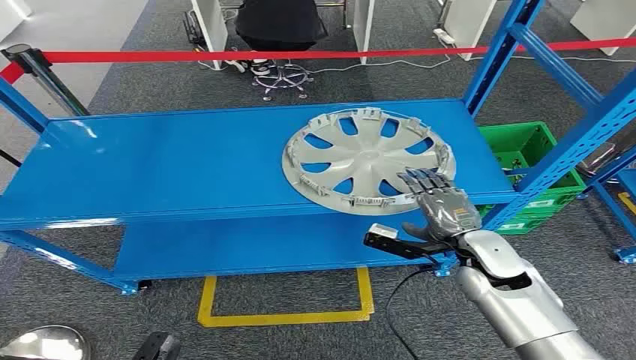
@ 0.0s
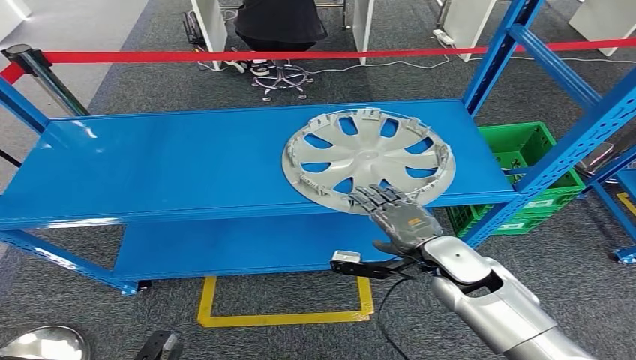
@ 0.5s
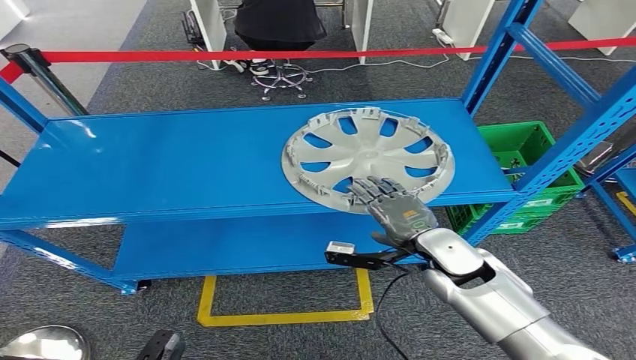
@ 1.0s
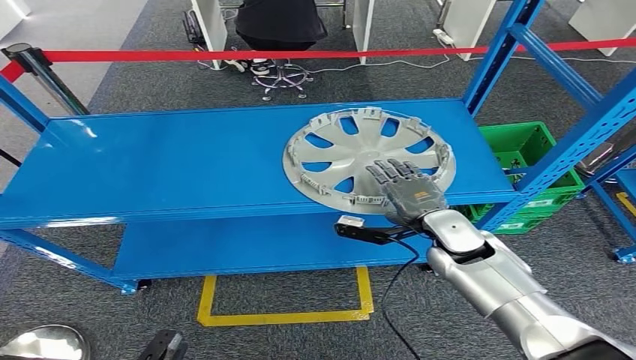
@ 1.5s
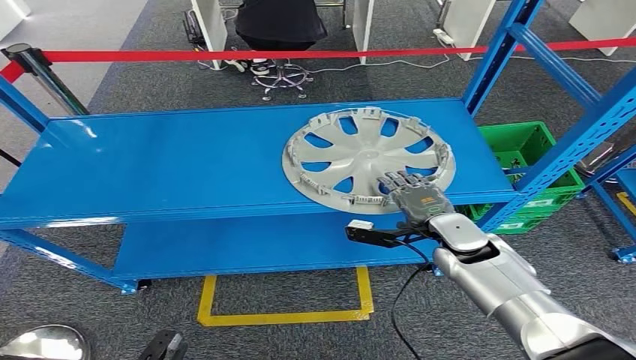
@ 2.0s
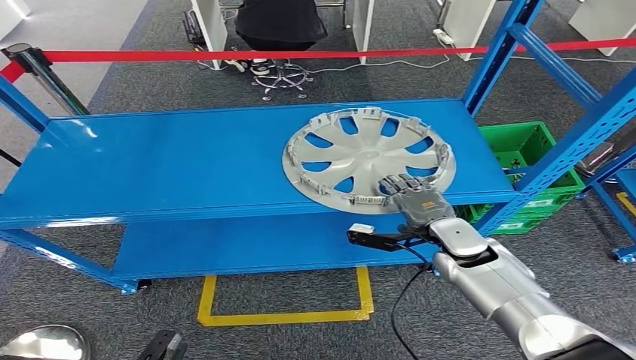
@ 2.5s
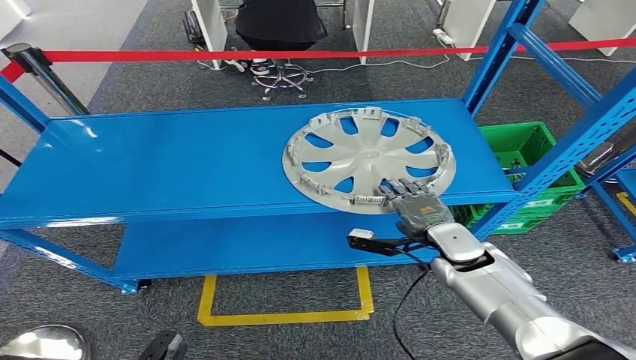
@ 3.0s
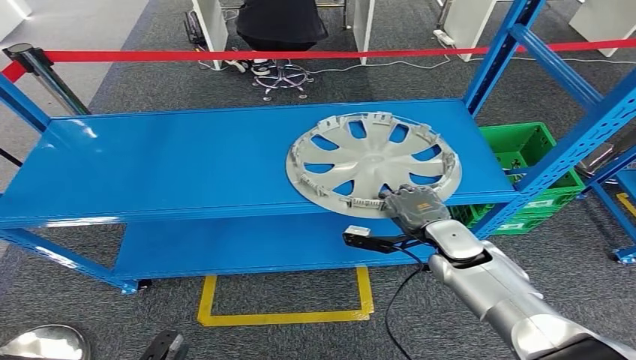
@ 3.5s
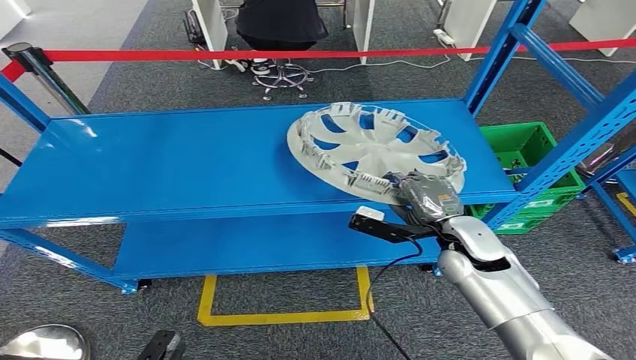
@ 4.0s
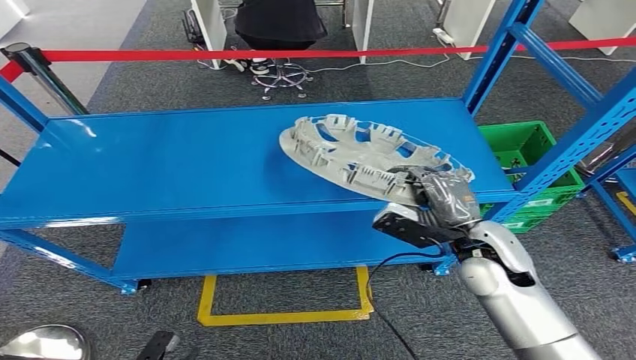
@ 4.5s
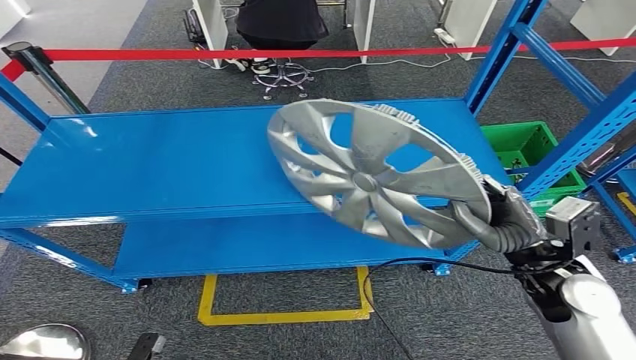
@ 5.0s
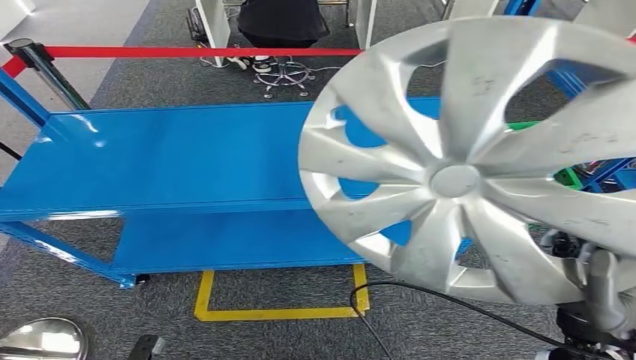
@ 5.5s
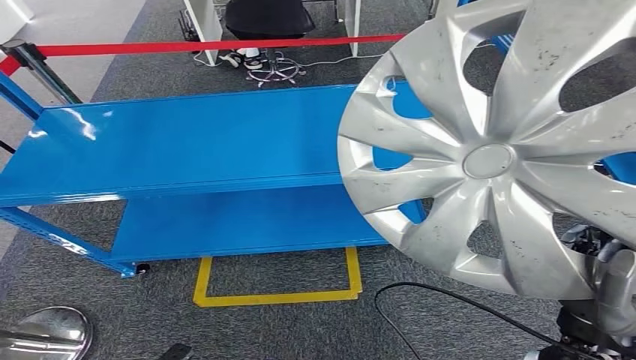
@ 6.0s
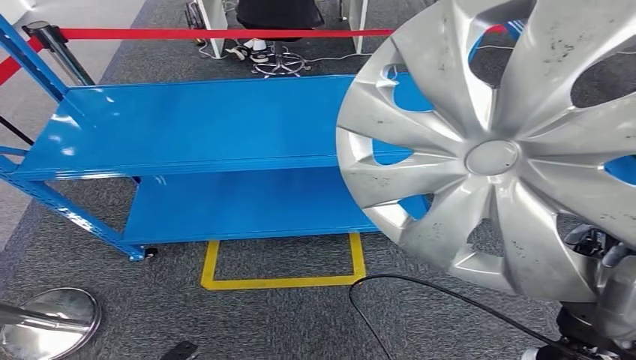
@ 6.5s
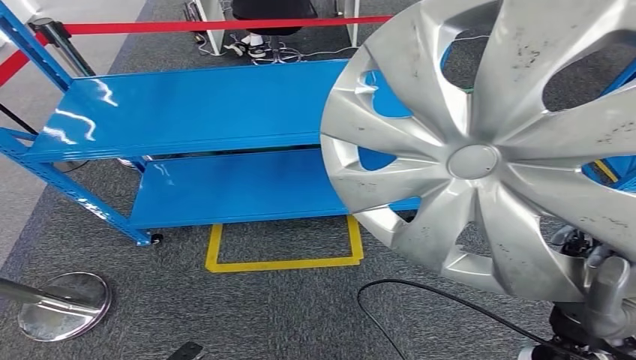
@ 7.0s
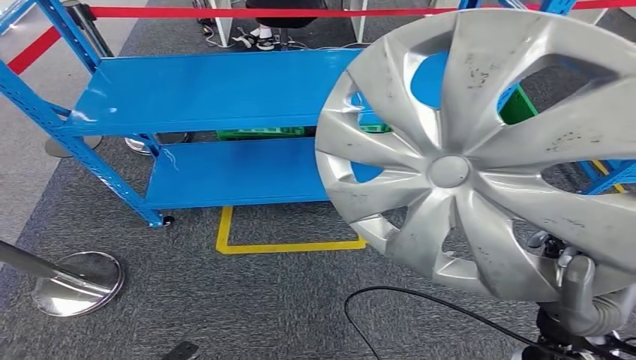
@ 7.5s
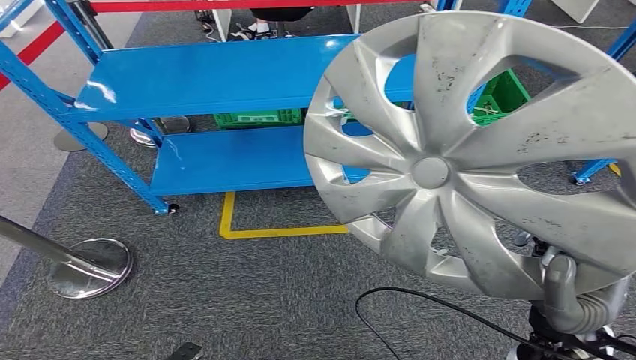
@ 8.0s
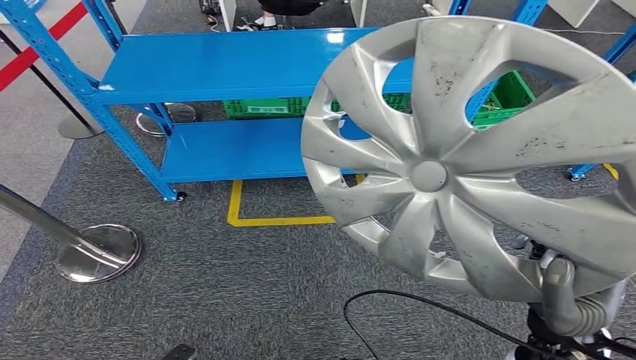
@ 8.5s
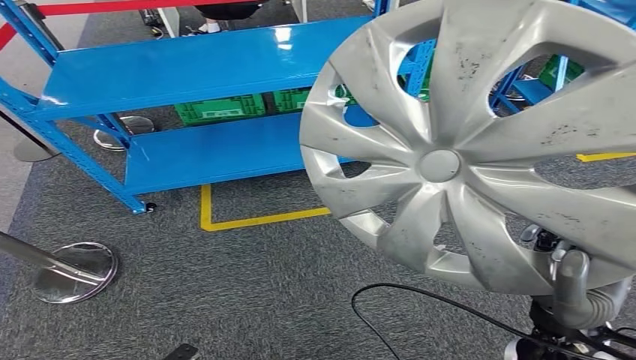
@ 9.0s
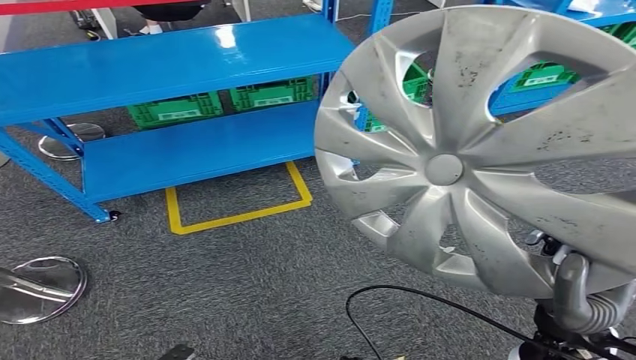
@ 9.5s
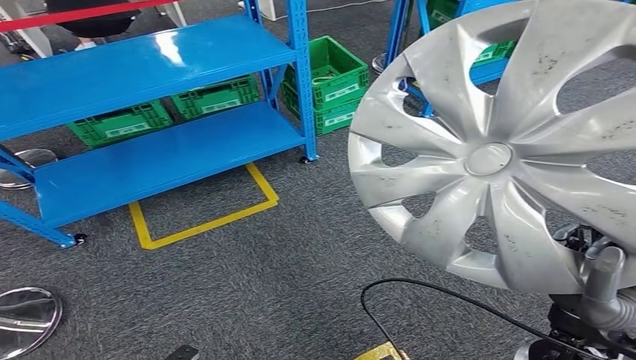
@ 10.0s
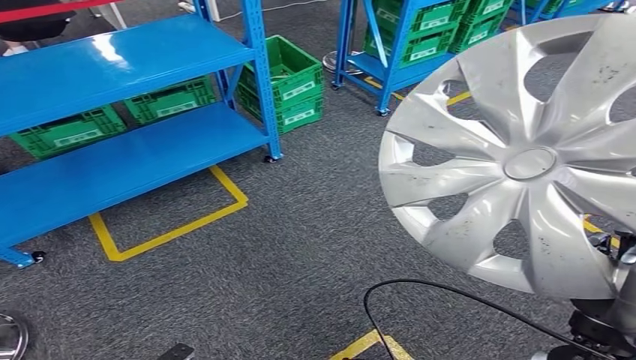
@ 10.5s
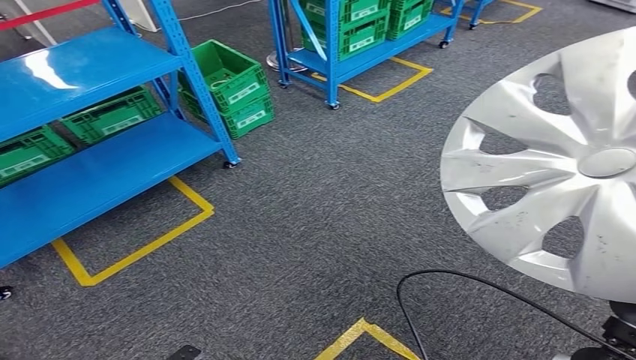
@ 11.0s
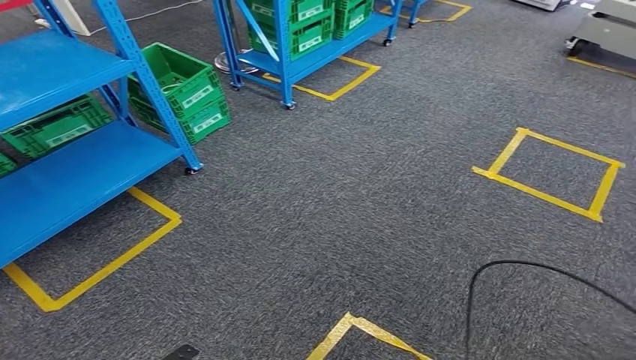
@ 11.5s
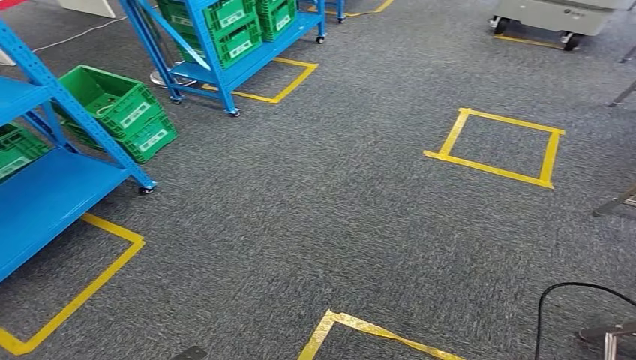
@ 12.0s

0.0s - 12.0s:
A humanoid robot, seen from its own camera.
Step, 0.0s - 6.0s: Pick up the small component from the shelf.

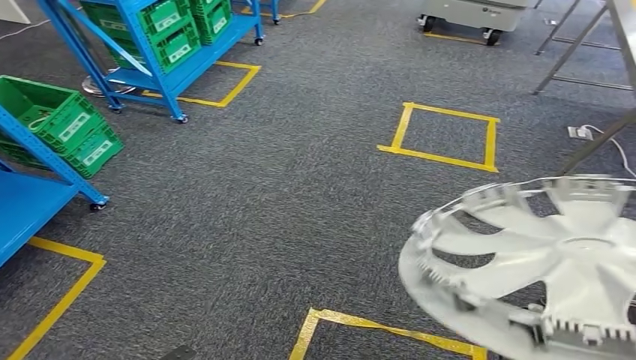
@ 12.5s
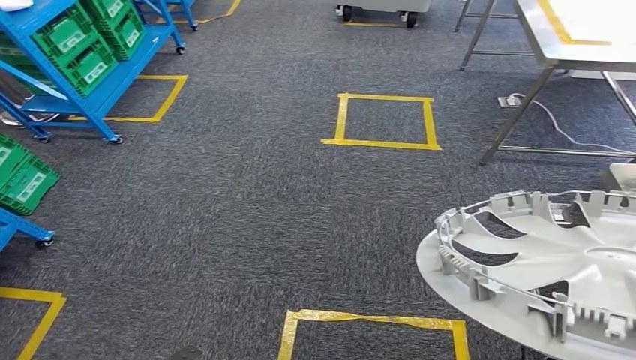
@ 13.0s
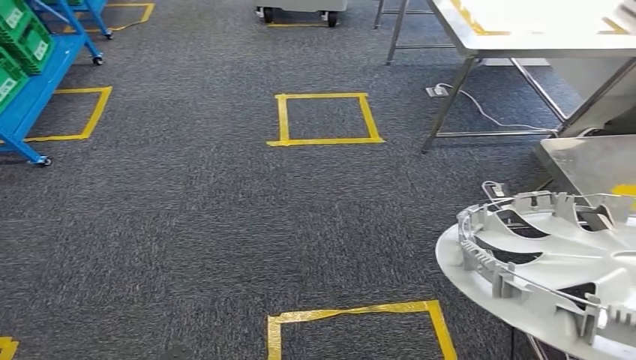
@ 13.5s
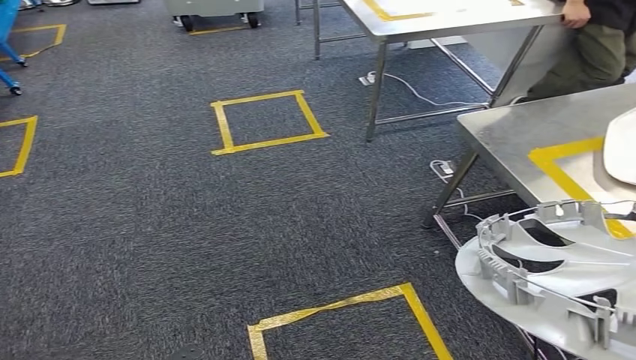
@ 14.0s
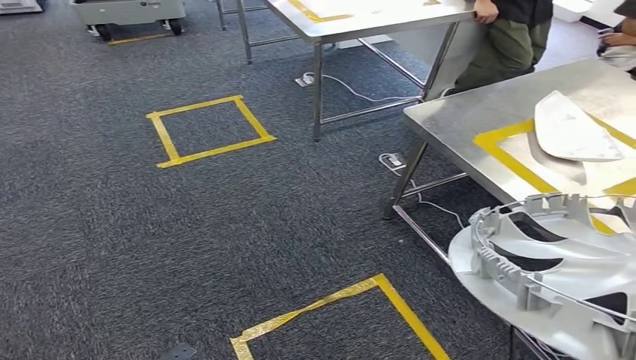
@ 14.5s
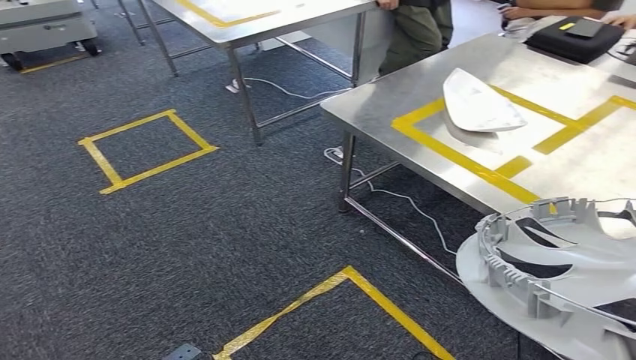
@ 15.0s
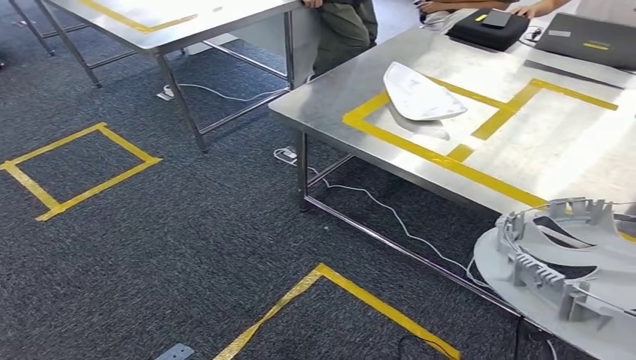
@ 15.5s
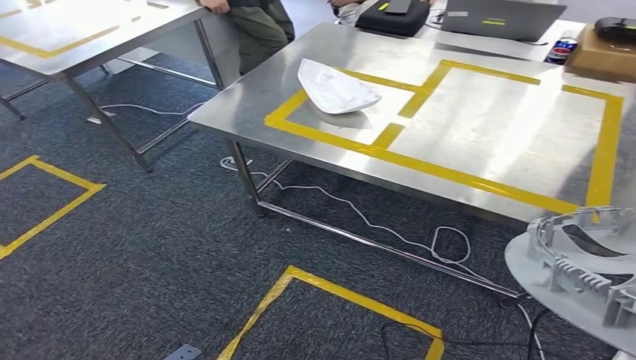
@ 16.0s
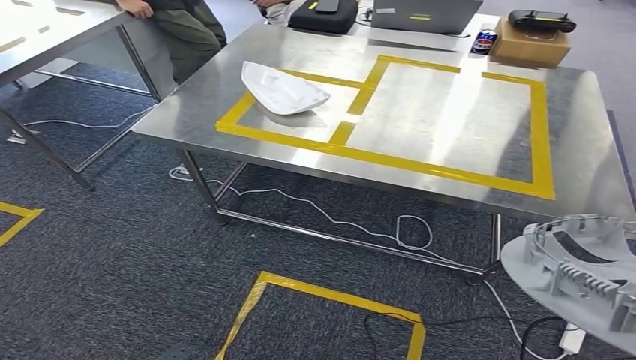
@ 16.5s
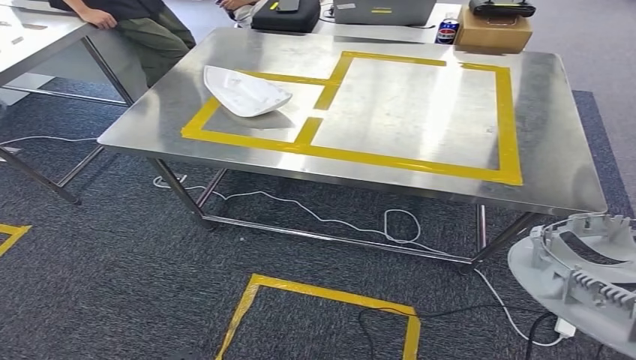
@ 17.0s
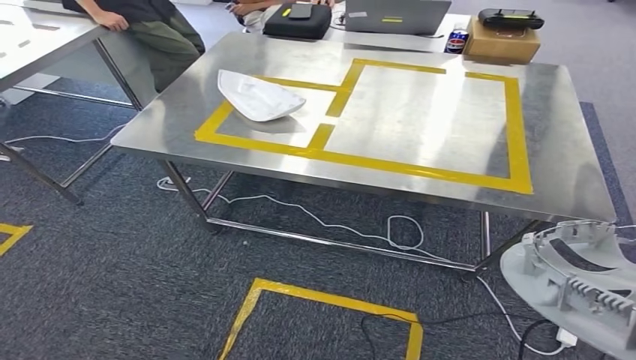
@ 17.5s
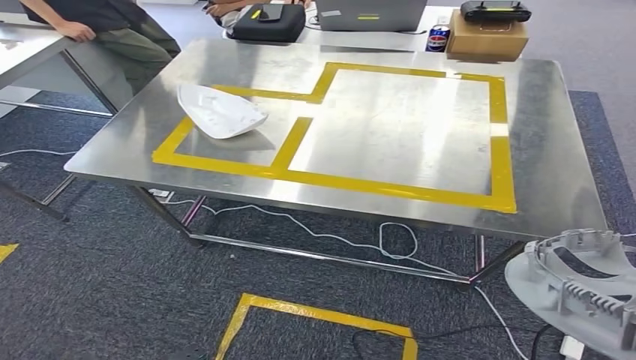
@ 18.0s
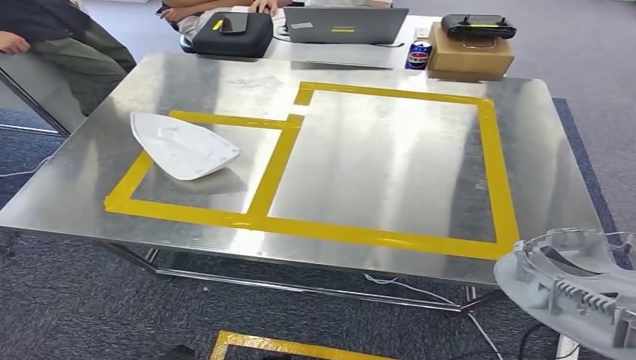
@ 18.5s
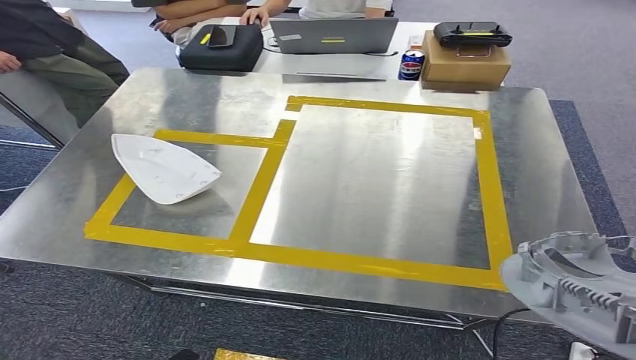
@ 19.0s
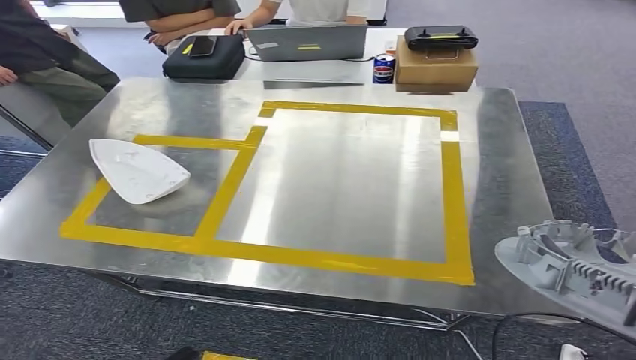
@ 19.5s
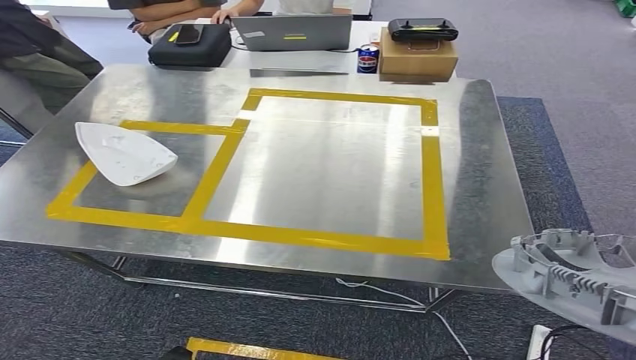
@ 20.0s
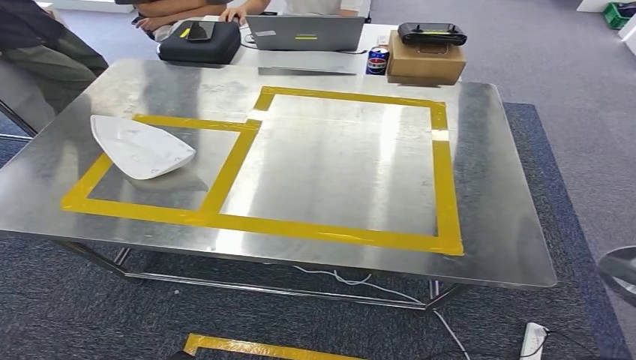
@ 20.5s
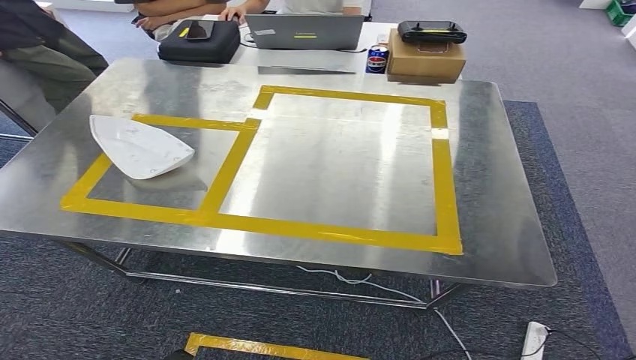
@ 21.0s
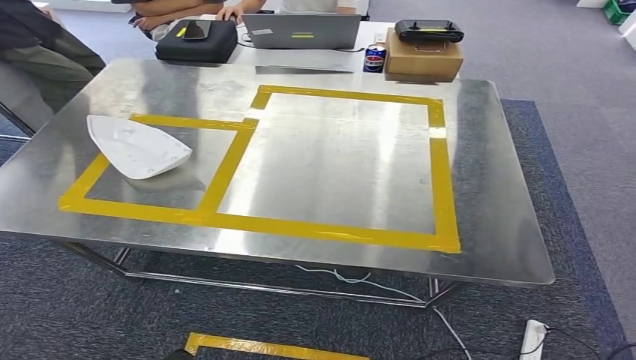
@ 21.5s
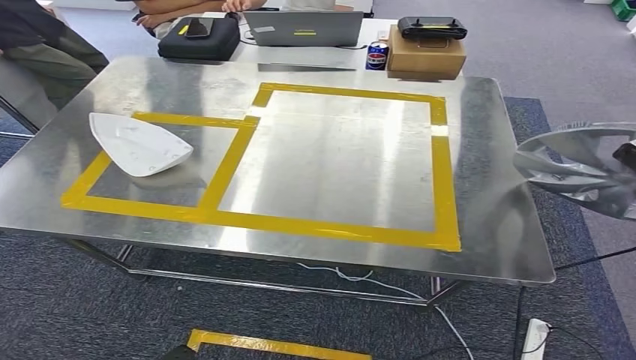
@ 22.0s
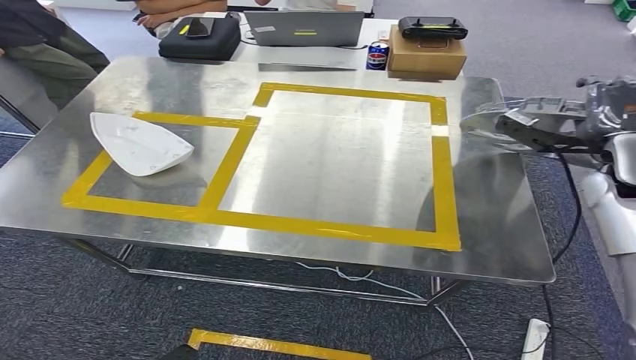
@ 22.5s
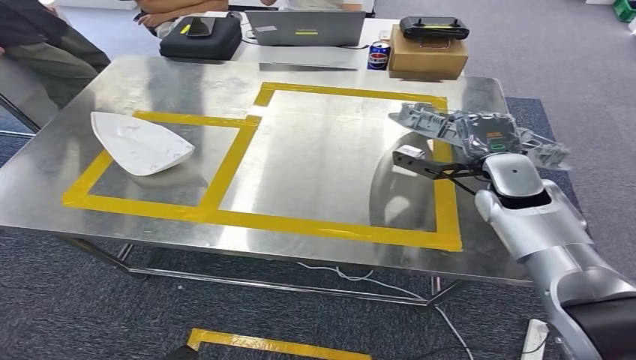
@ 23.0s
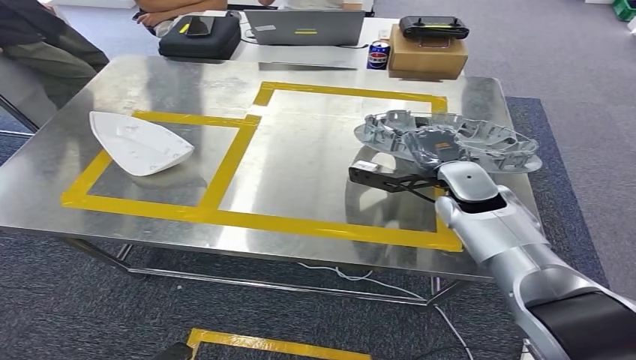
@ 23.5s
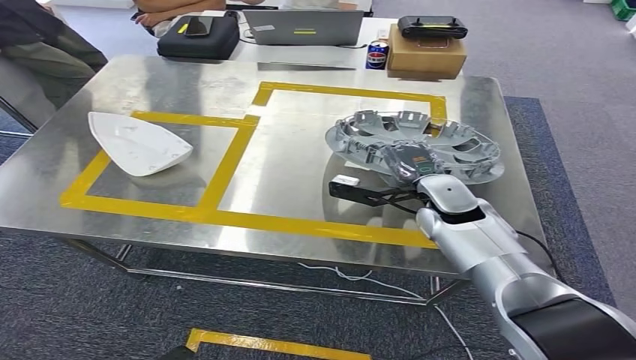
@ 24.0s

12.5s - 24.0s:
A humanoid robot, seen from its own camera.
Step, 12.5s - 16.5s: Move the small component to the workbench.
22.0s - 24.0s: The right hand goes approximately 35 cm to the left.
